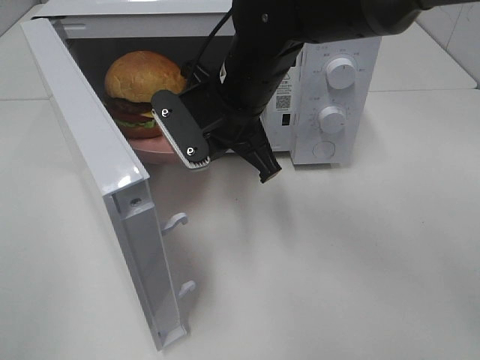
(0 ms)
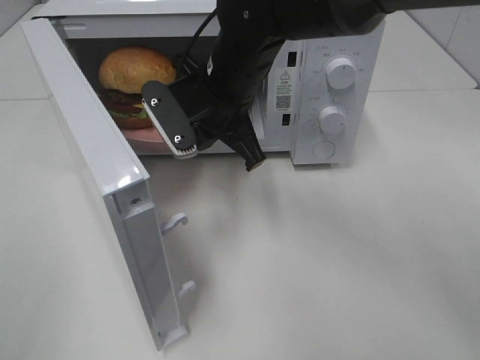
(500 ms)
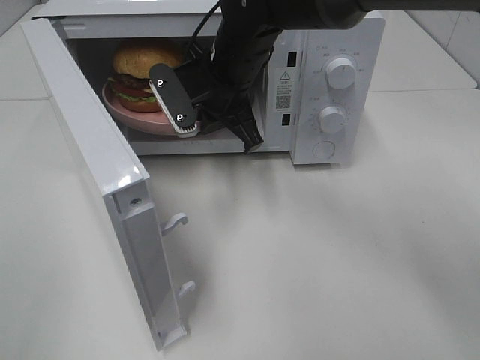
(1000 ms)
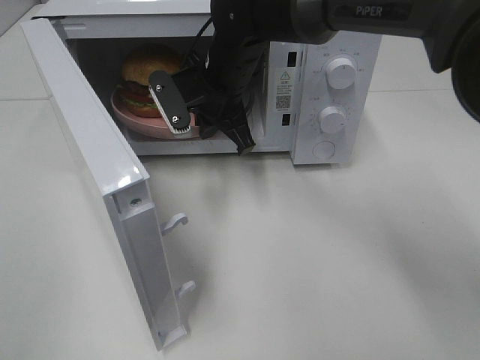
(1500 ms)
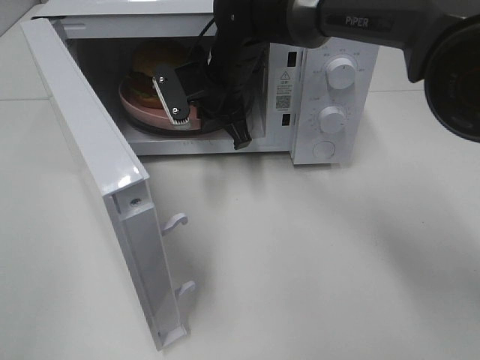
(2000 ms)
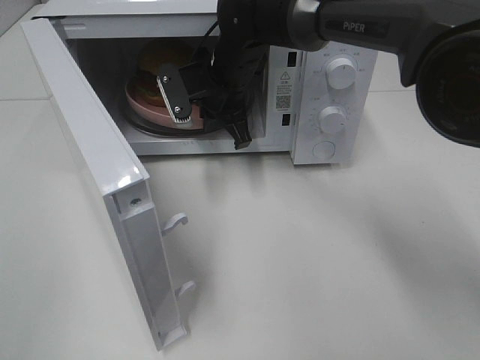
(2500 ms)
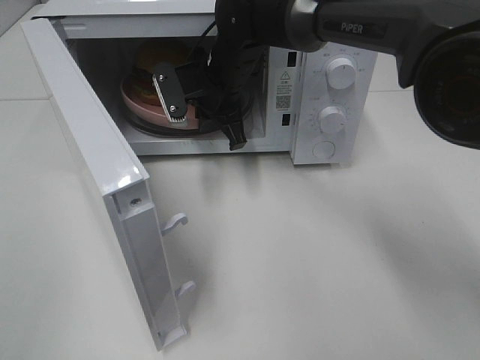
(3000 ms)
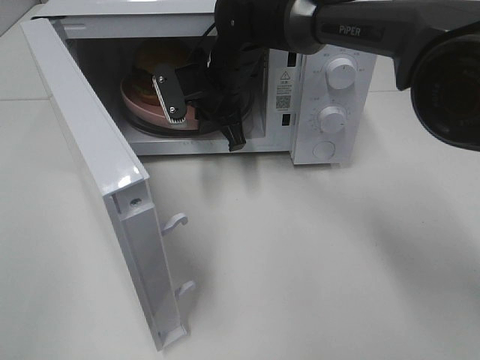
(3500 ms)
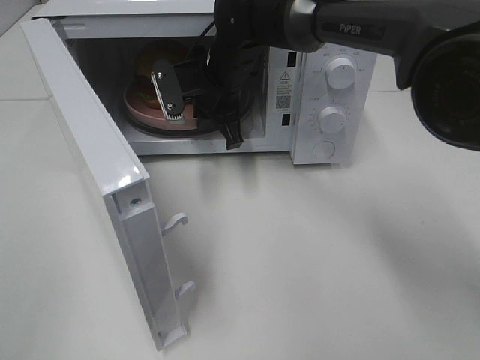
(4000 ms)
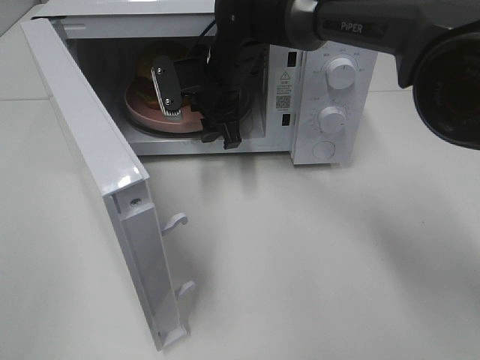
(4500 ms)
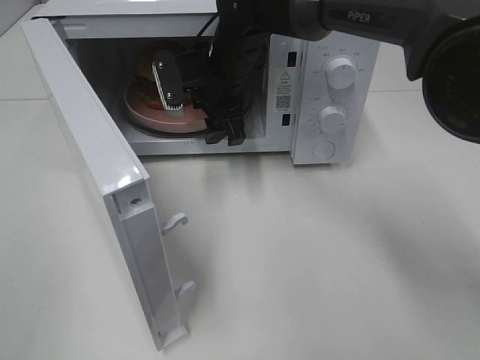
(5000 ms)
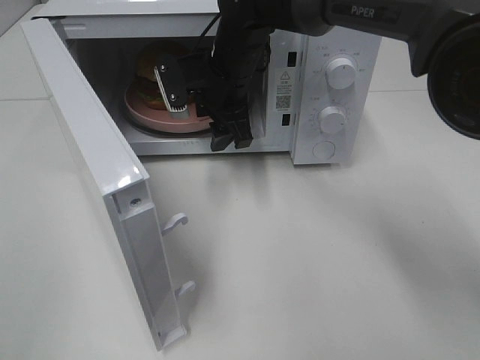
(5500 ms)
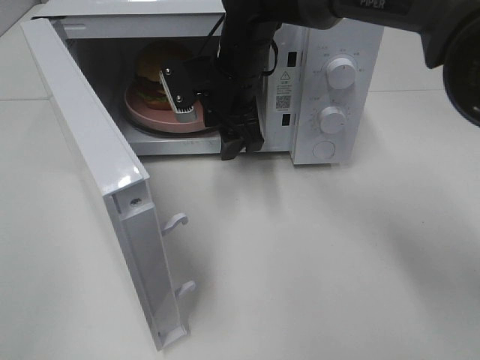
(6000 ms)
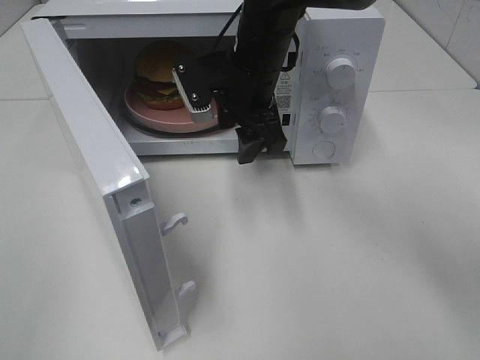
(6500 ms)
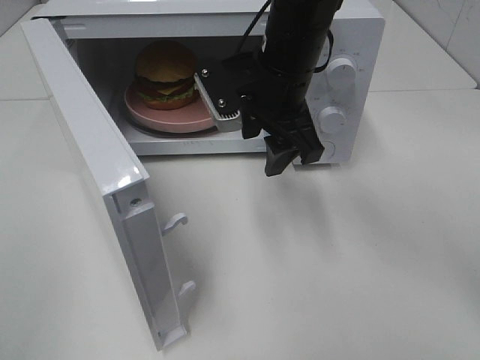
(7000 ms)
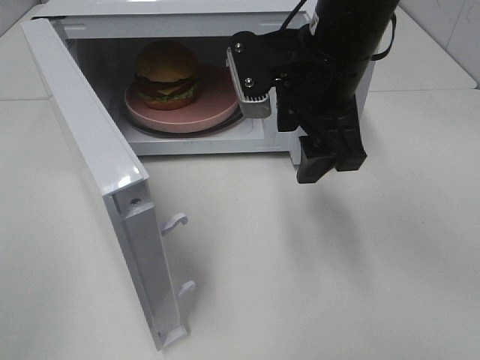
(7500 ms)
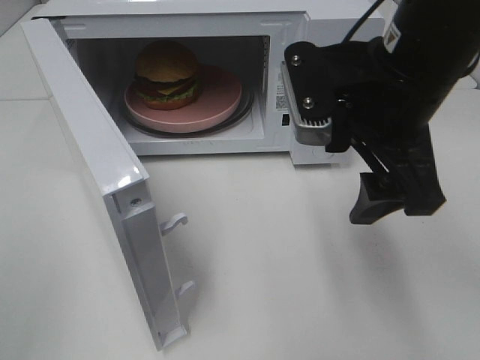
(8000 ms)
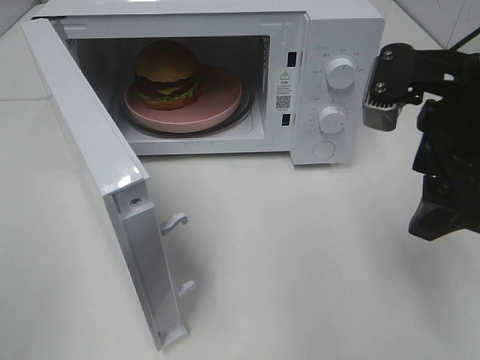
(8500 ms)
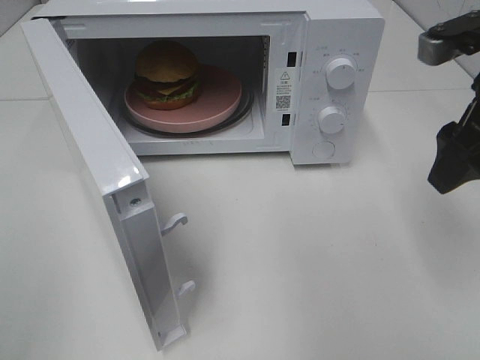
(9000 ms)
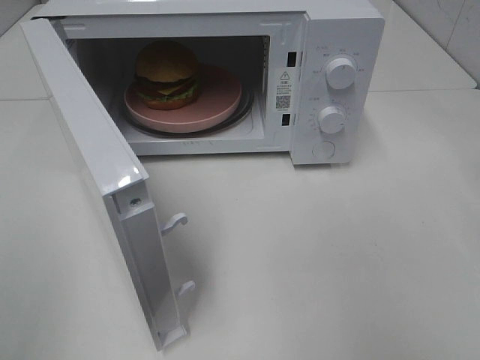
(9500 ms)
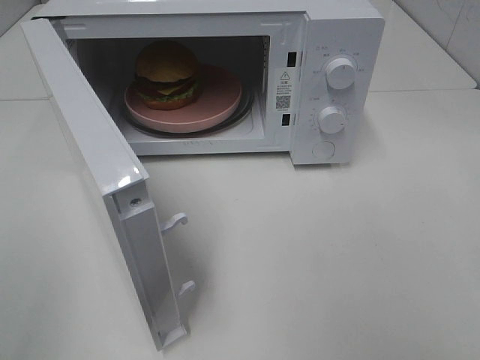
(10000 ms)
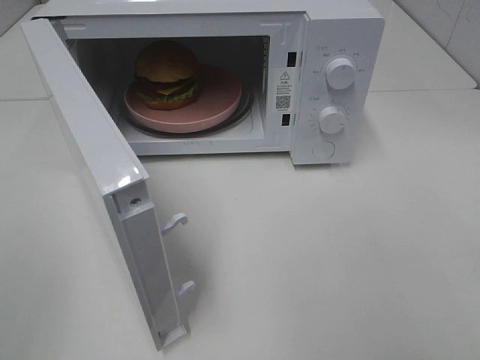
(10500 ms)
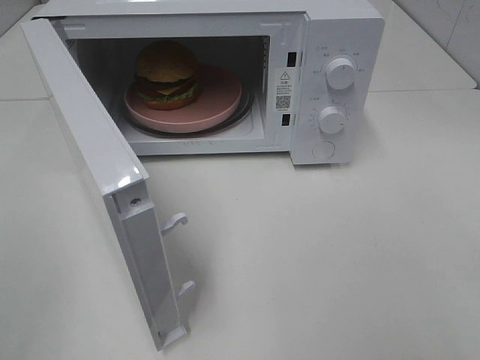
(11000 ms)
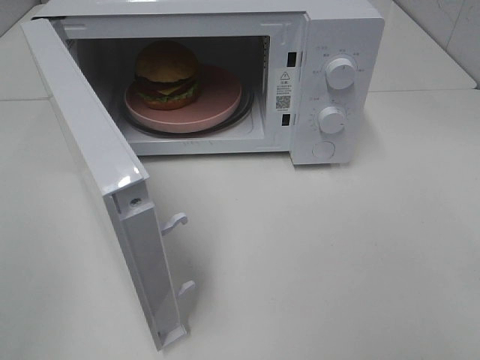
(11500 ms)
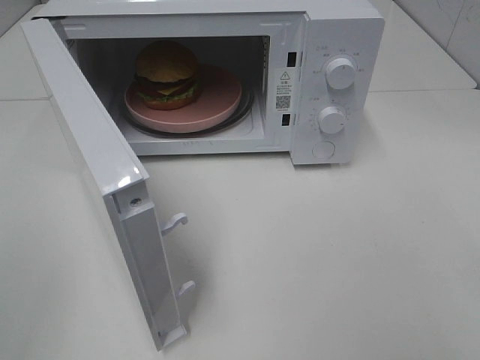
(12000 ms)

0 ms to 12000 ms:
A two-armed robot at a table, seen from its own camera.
Task of the whole recording: Heat the burger.
Step, 0 ms to 4000 ms: Right hand: place the plate in the microwave.
0 ms to 2000 ms: The right gripper goes about 10 cm forward.
2000 ms to 4000 ms: There are only small adjustments of the grippers.
4000 ms to 6000 ms: The right gripper opens its fingers.
6000 ms to 8000 ms: The right gripper shifts roughly 25 cm backward, to the right and upward.
8000 ms to 10000 ms: The right gripper goes roughly 20 cm to the right and backward.

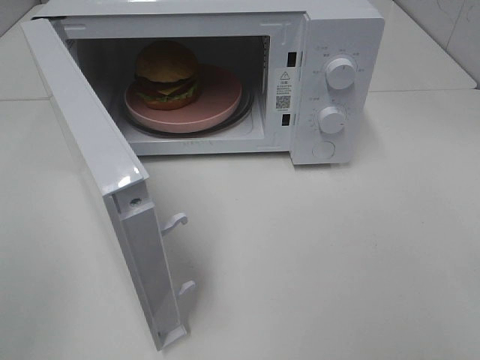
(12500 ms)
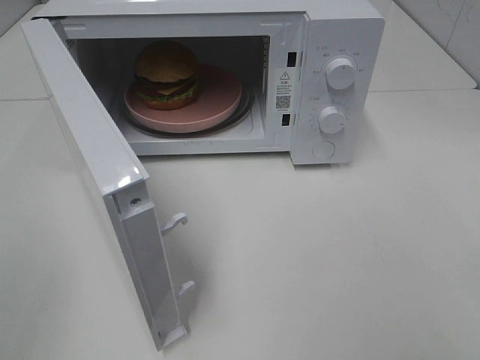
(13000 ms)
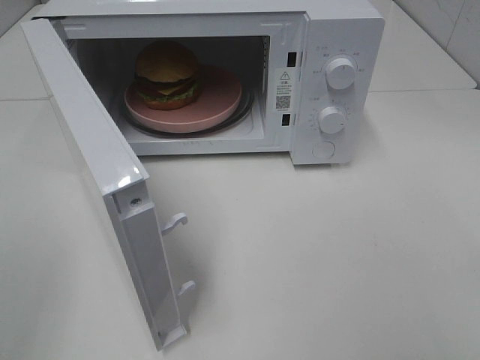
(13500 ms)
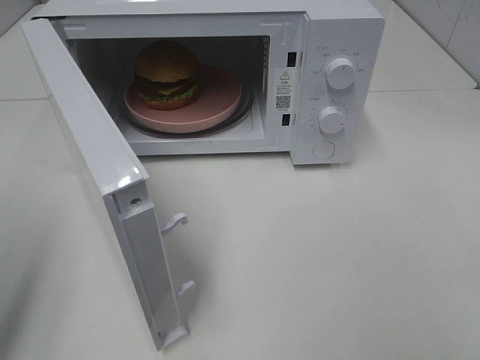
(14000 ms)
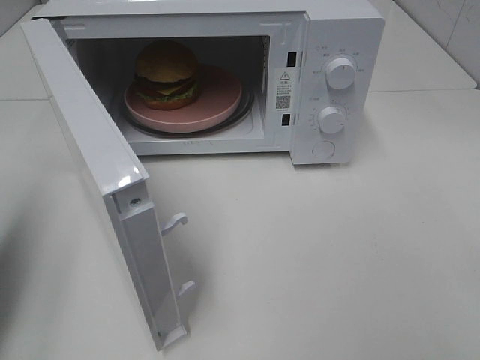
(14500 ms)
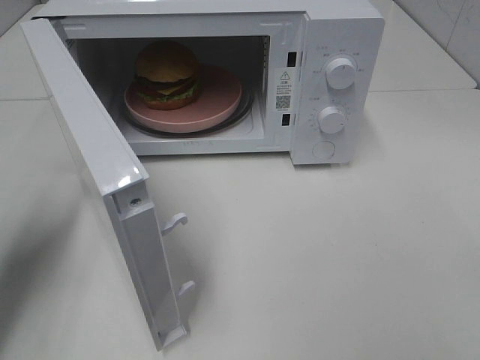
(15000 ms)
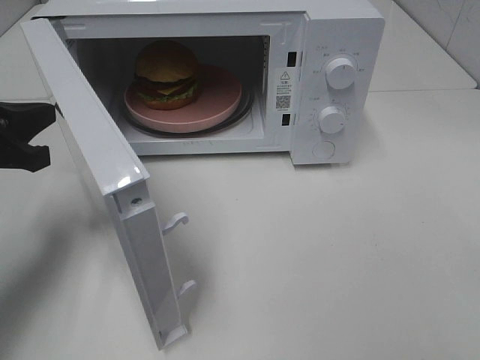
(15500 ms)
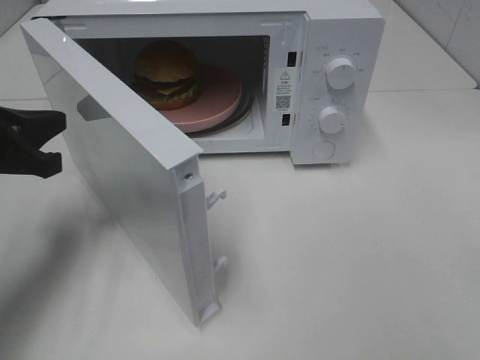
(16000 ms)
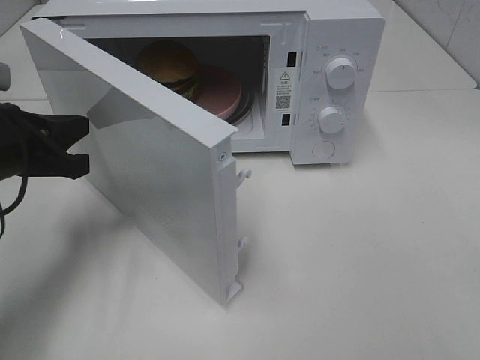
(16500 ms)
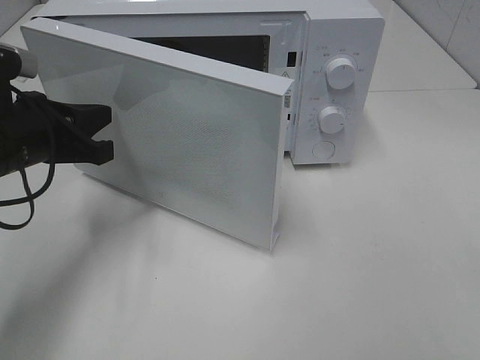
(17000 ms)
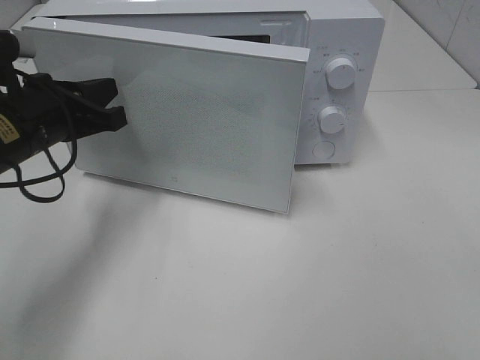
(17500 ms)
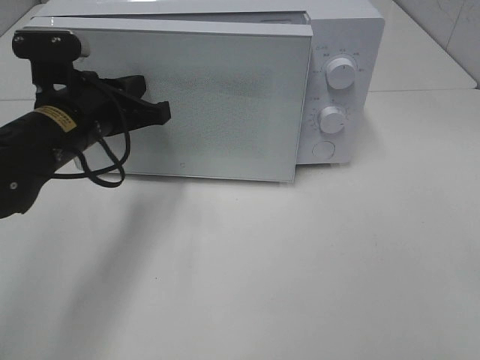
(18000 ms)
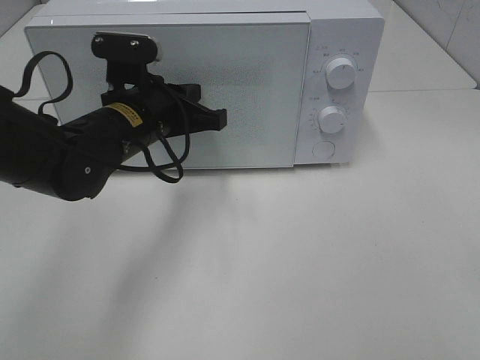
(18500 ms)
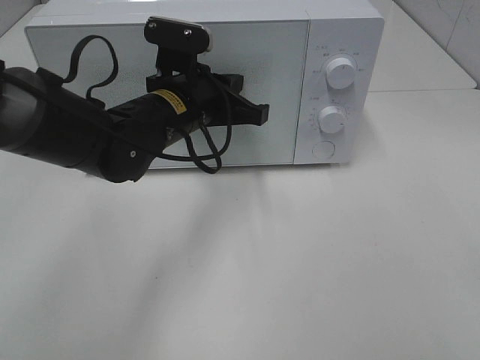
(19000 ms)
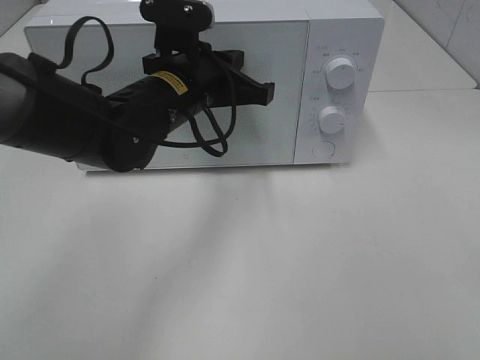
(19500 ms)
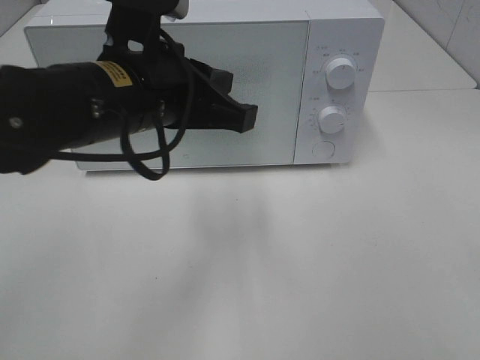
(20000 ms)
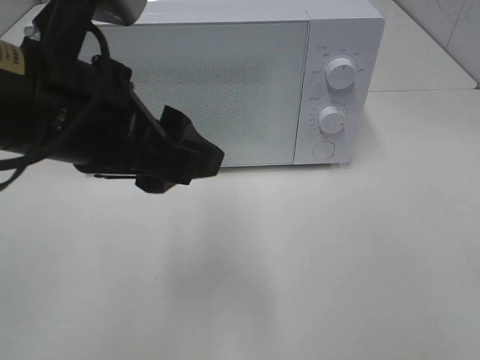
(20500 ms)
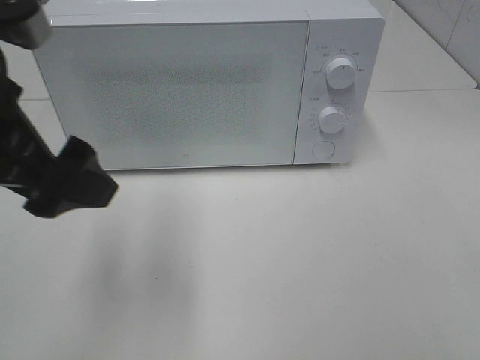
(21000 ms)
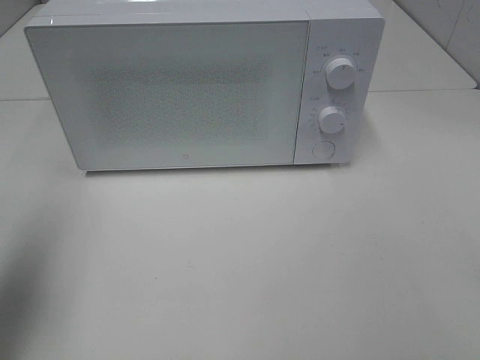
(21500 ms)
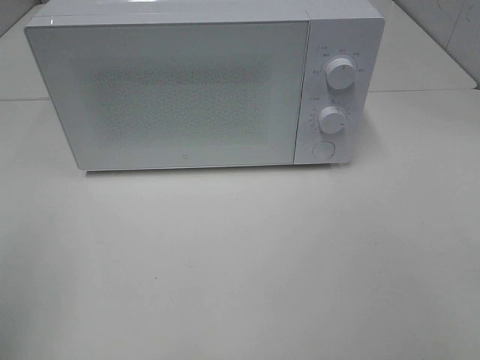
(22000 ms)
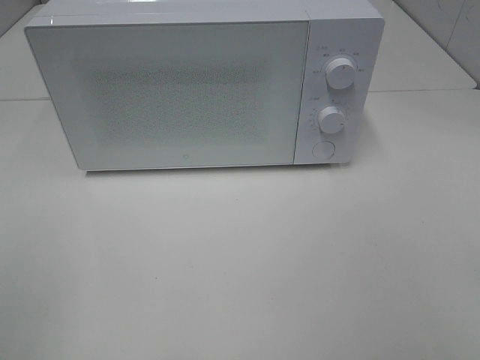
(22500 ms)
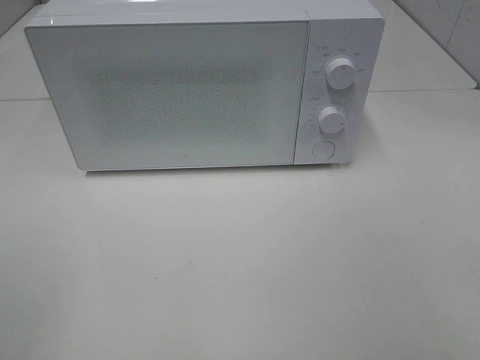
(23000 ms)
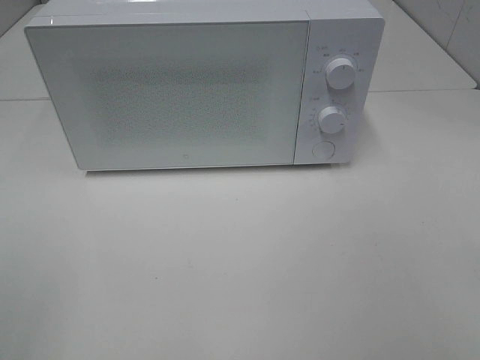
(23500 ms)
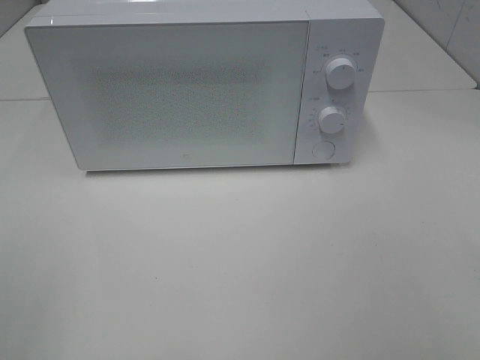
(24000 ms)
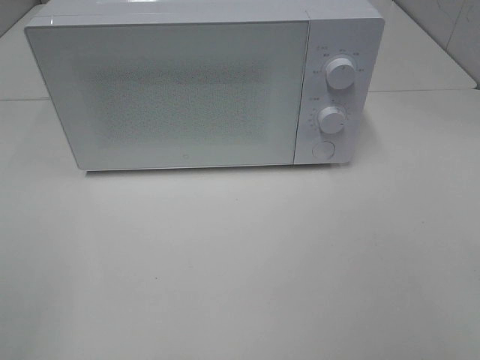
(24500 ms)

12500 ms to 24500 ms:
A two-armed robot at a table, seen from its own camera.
Task of the whole recording: Heat the burger.
Step, 12500 ms to 18500 ms: Left hand: close the microwave door.
12500 ms to 14500 ms: The left gripper goes some 15 cm forward, and closes.
14500 ms to 16500 ms: The left gripper shifts about 15 cm forward, to the right and downward.
16500 ms to 18500 ms: The left gripper heads to the right and forward, covering roughly 15 cm.
18500 ms to 20500 ms: The left gripper moves backward and upward, approximately 20 cm, and opens.
20500 ms to 22500 ms: The left gripper goes some 25 cm to the left and backward.
22500 ms to 24500 ms: Neither gripper changes place.

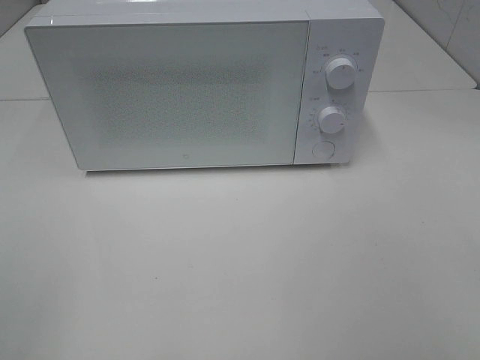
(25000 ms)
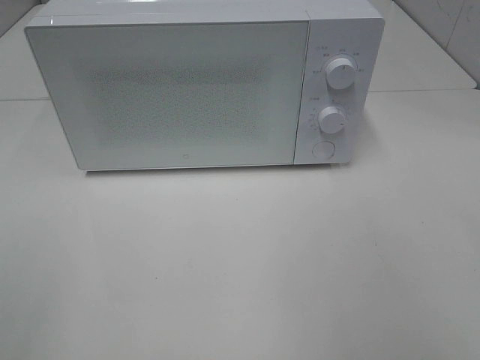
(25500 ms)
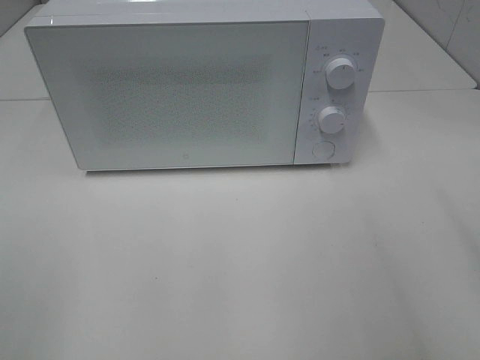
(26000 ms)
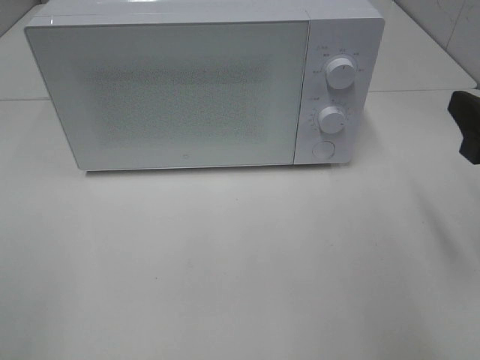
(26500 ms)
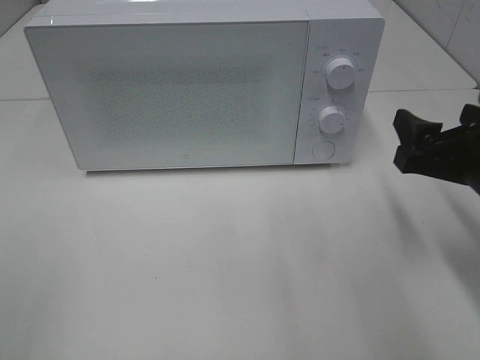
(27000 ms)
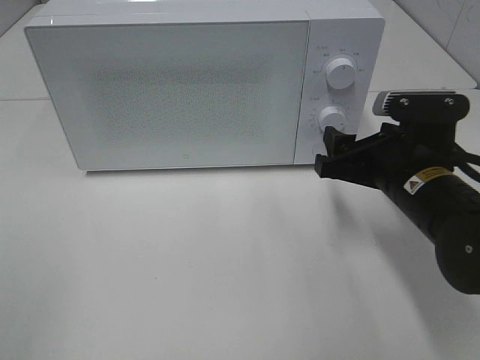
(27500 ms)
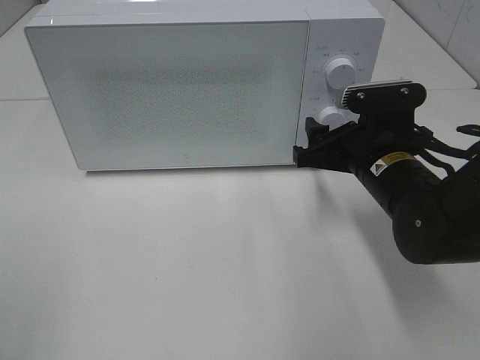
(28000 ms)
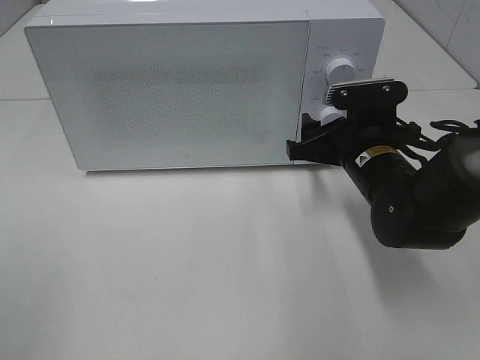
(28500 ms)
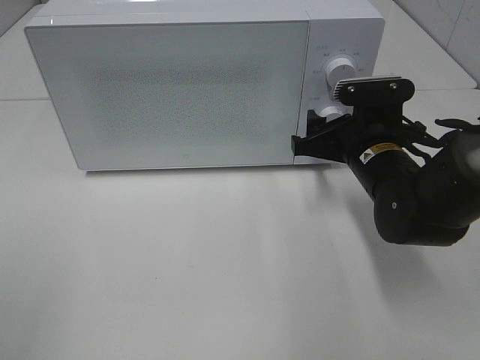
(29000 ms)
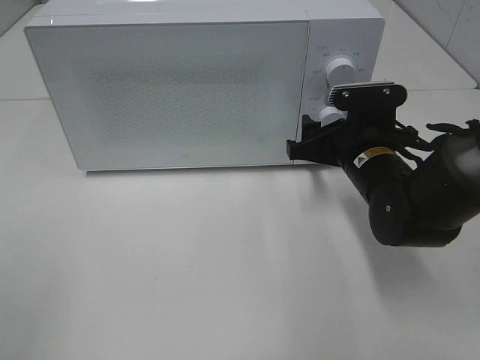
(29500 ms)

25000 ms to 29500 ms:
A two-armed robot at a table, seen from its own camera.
Task of the whole recording: Heat the burger.
25000 ms to 27000 ms: The right gripper shifts approximately 25 cm forward and downward.
27000 ms to 29500 ms: The right gripper heads forward, to the left and downward, covering approximately 15 cm.
